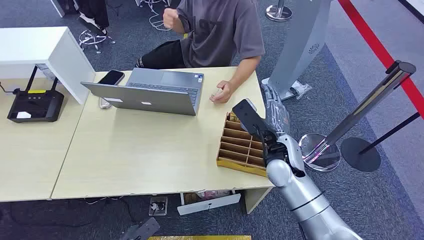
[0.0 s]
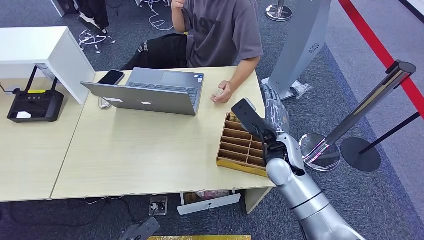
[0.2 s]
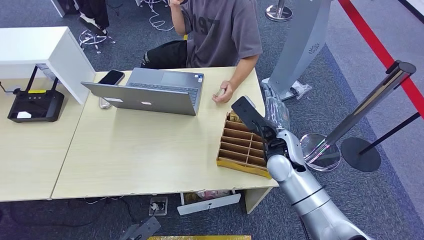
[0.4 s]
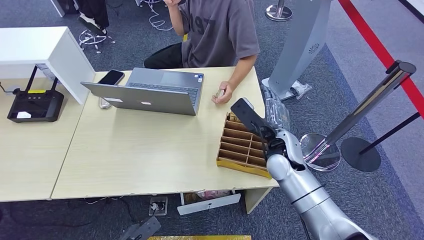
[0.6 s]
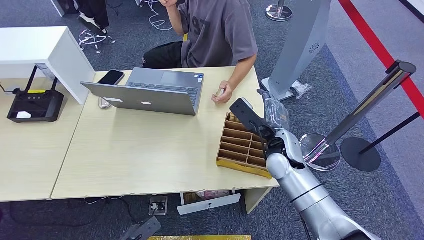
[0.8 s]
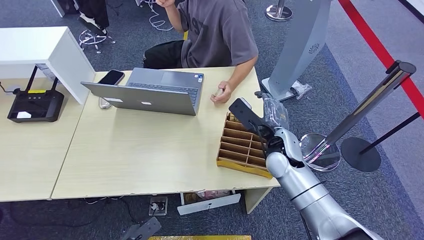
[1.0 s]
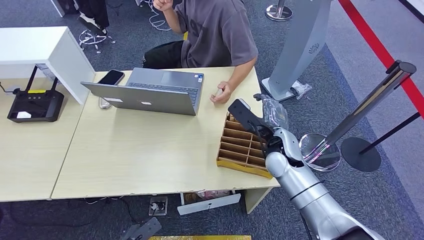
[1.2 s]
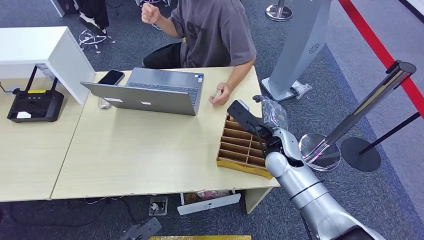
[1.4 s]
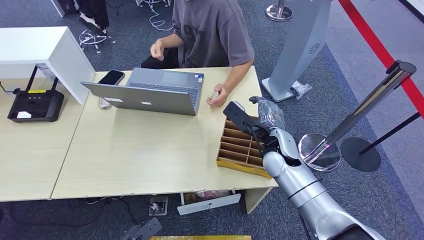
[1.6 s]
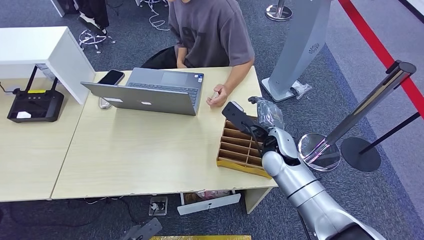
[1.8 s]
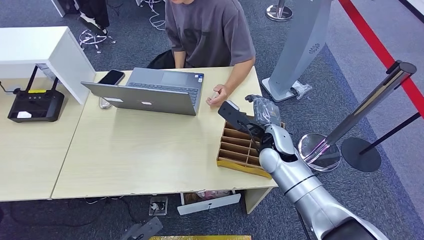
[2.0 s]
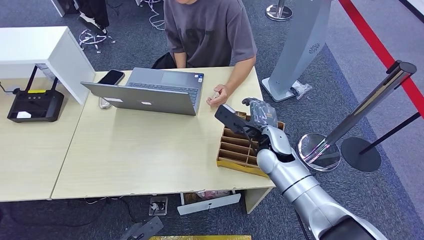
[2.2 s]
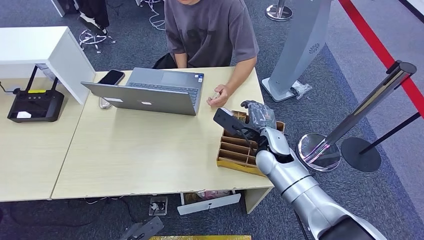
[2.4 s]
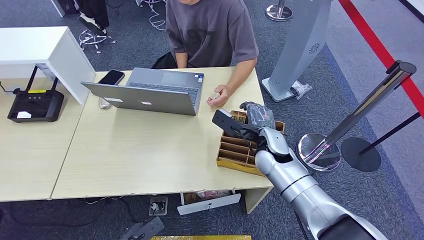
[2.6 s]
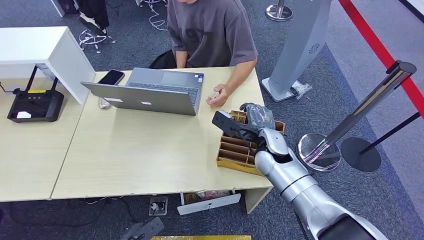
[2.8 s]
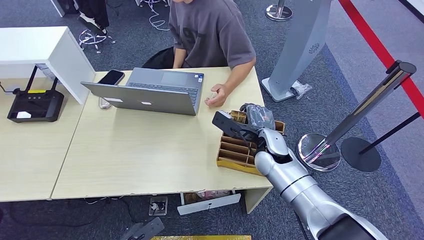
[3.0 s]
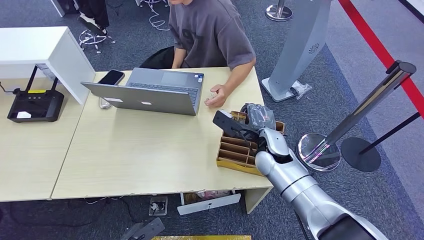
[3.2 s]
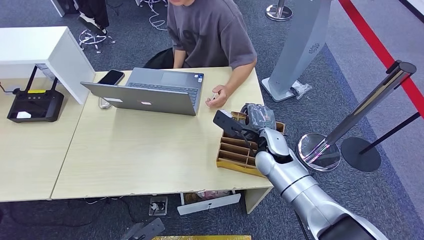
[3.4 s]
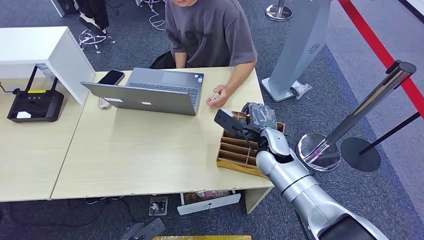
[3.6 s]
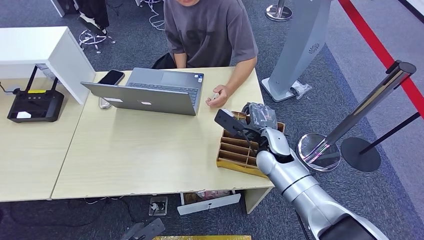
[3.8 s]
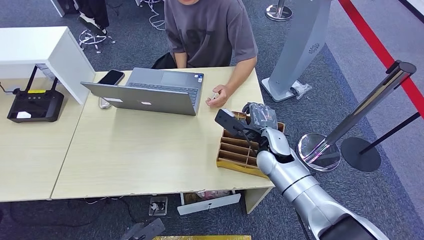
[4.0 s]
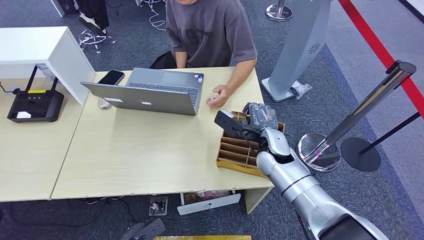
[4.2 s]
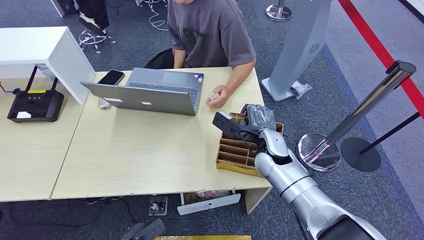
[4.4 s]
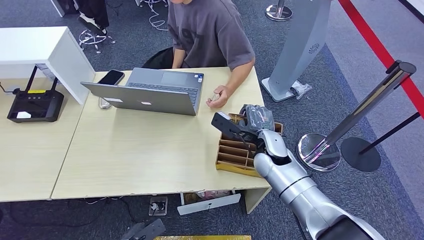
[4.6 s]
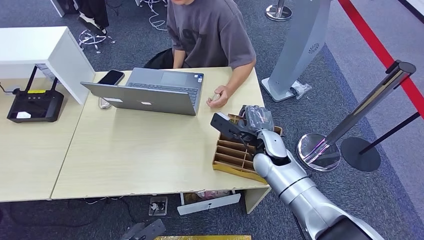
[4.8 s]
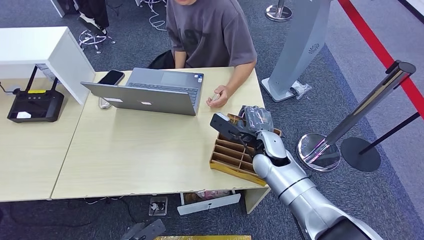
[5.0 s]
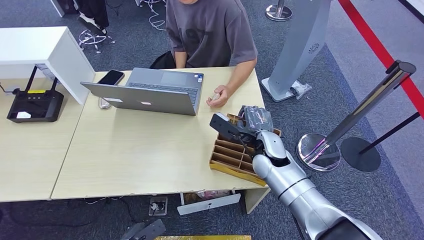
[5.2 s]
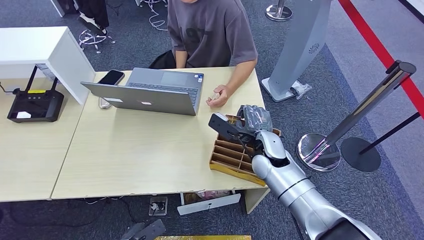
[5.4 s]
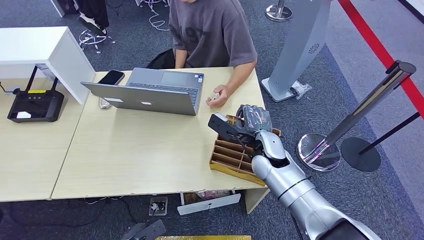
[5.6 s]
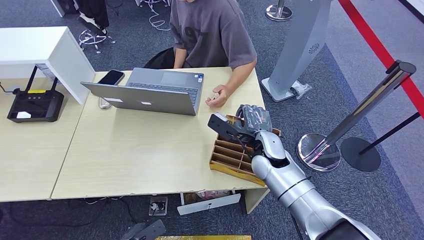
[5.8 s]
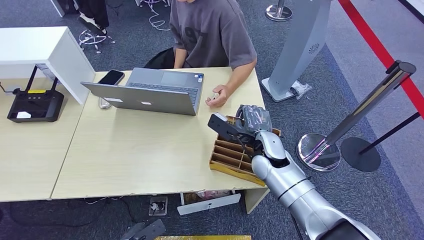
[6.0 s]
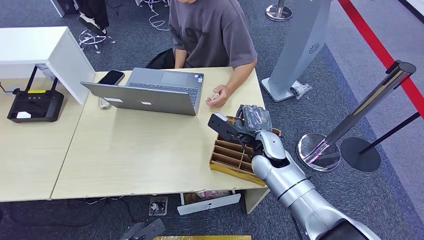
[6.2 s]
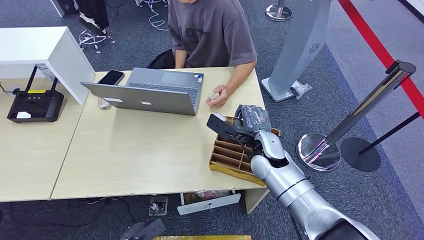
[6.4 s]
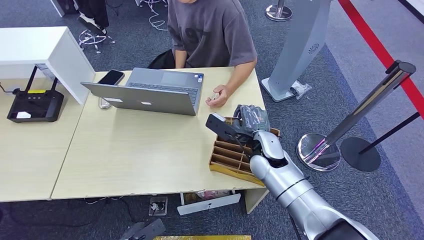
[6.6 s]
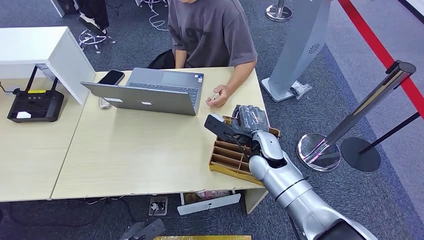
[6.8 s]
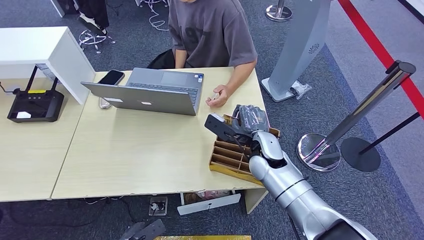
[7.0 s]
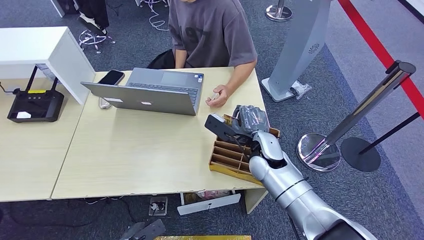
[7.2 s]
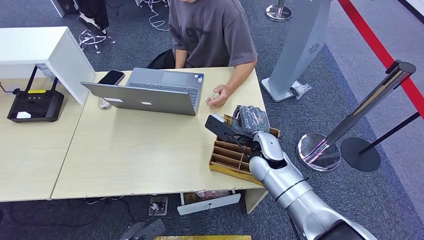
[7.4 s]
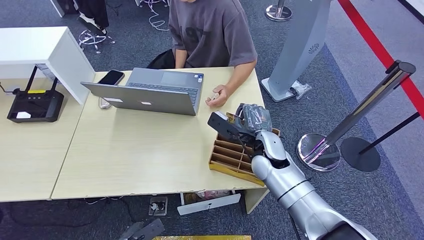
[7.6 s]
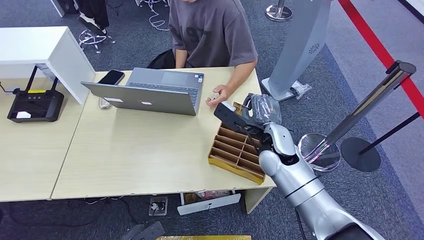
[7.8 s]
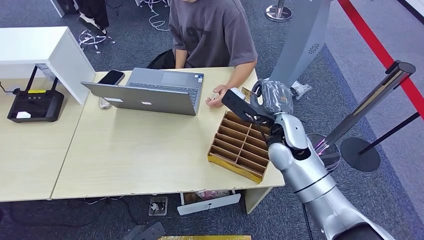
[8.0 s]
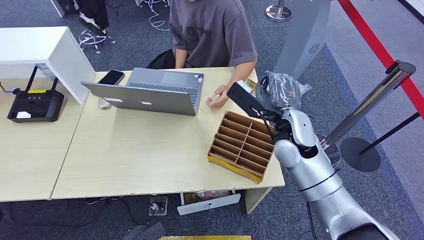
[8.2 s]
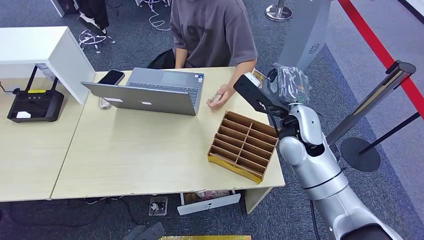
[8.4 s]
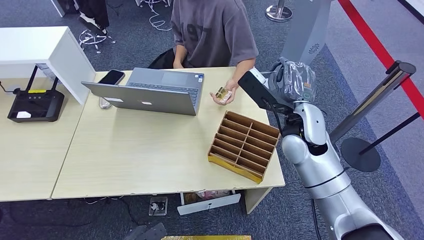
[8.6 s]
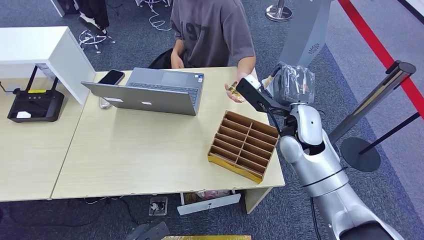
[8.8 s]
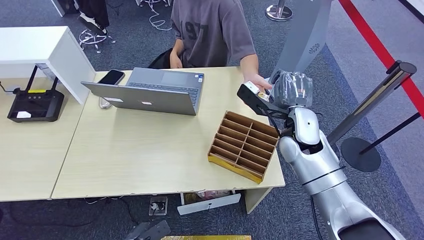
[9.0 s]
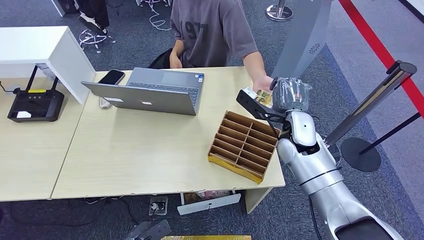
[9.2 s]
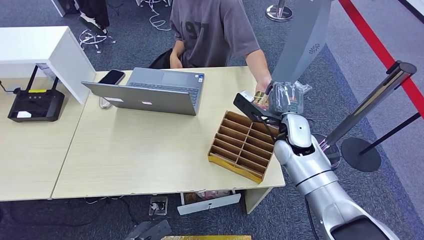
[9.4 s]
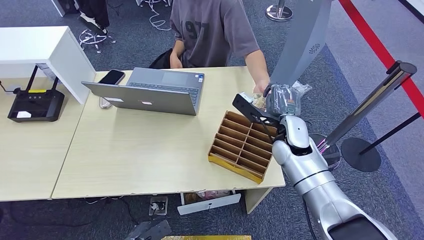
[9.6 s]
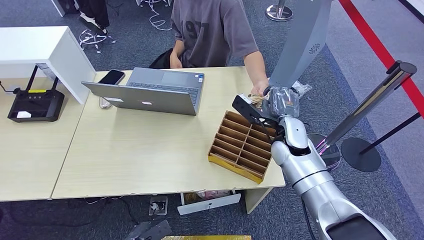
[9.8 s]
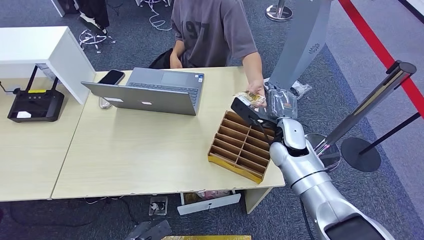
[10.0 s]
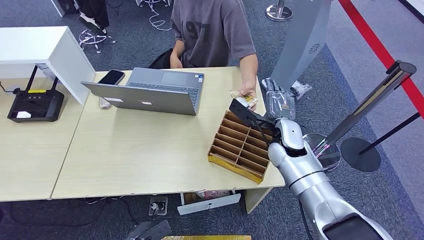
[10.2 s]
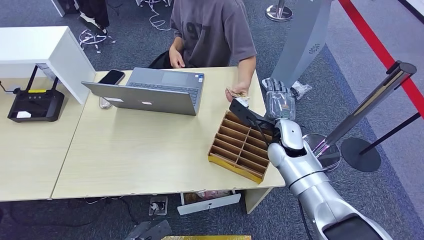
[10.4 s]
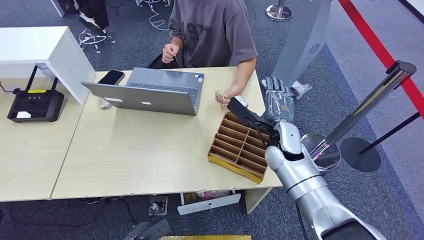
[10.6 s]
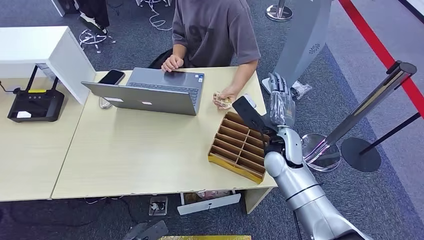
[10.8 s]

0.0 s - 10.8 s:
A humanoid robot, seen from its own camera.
Step, 0.0 s - 8.2 s: Pick up the room card from the card holder.
Step, 8.6 s - 10.6 s: Hand the room card to the target.
1.6 s - 4.6 s: There are only small adjustments of the hands.
4.6 s - 6.2 s: Neither hand changes place.
6.2 s - 7.8 s: The right hand moves upward and to the right, roughly 10 cm.
7.8 s - 9.2 s: The right hand heads downward, covering some 10 cm.
9.2 s - 10.8 s: The right hand is displaced backward by some 5 cm.
